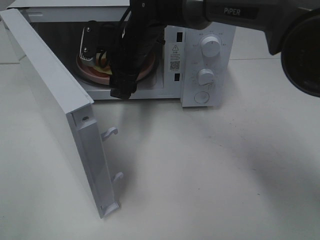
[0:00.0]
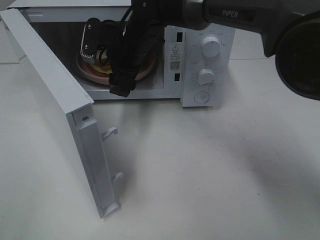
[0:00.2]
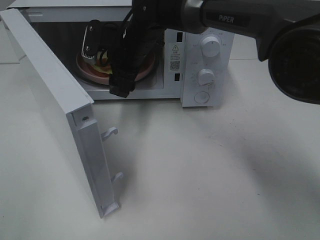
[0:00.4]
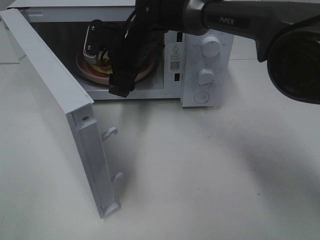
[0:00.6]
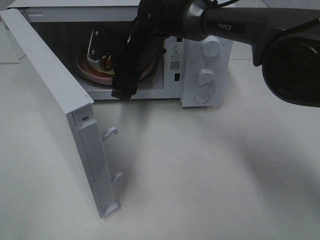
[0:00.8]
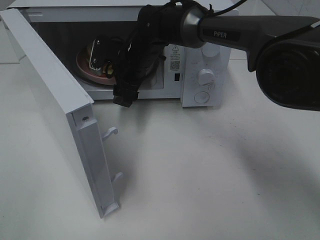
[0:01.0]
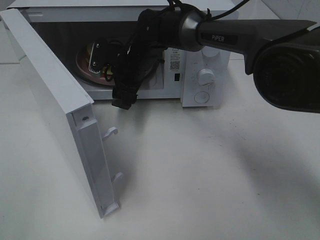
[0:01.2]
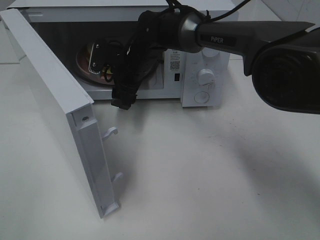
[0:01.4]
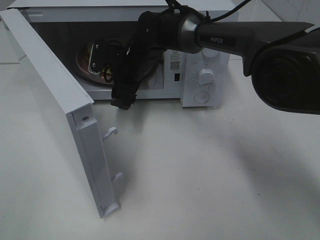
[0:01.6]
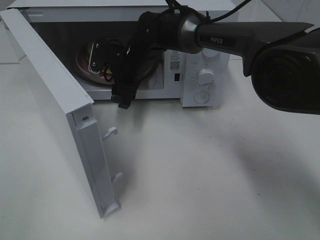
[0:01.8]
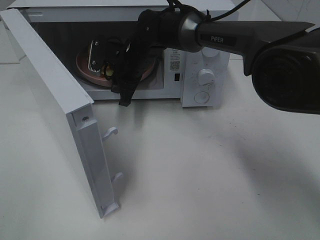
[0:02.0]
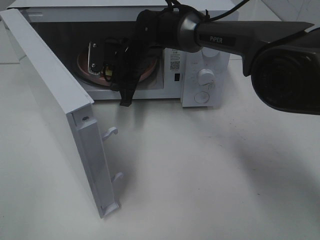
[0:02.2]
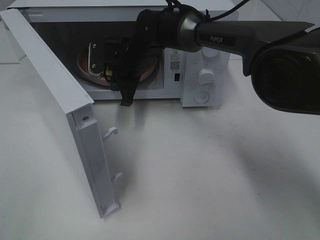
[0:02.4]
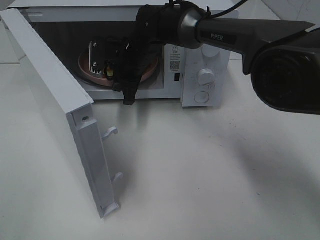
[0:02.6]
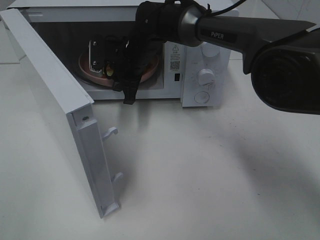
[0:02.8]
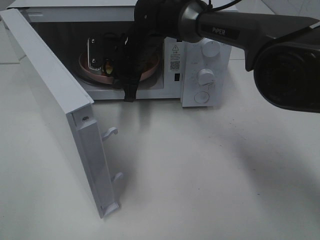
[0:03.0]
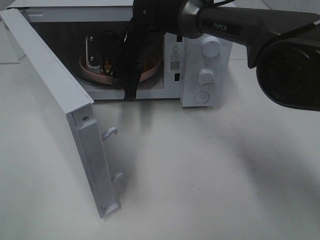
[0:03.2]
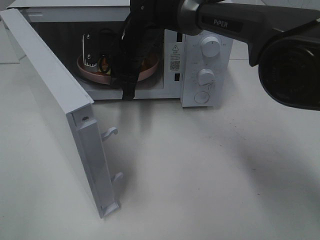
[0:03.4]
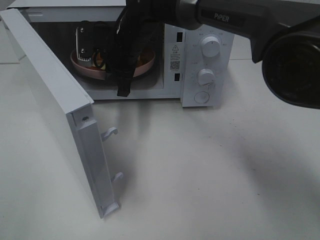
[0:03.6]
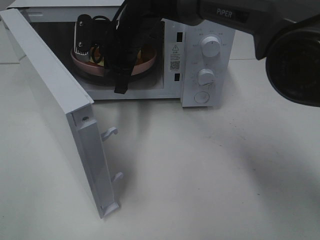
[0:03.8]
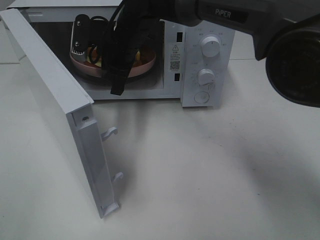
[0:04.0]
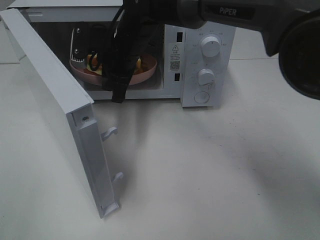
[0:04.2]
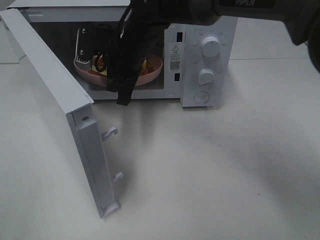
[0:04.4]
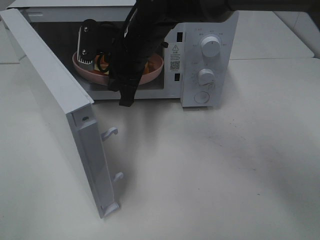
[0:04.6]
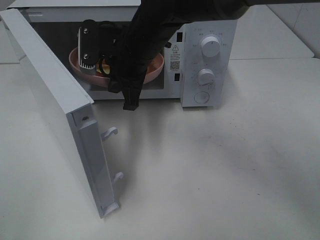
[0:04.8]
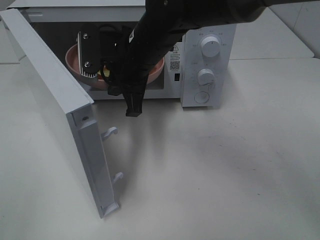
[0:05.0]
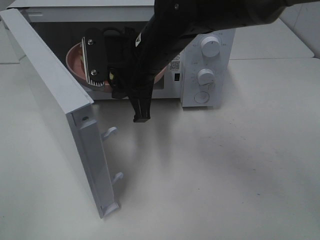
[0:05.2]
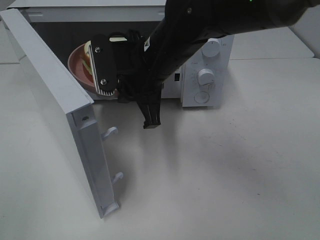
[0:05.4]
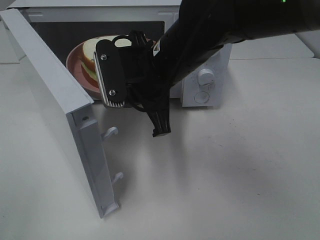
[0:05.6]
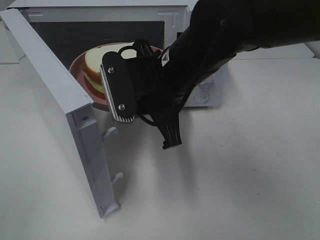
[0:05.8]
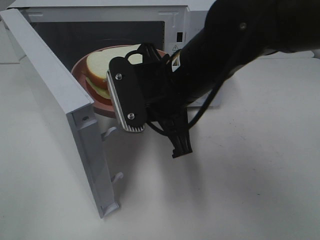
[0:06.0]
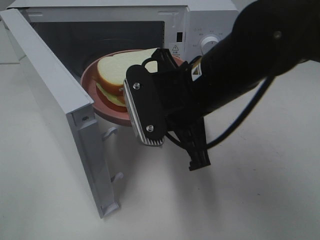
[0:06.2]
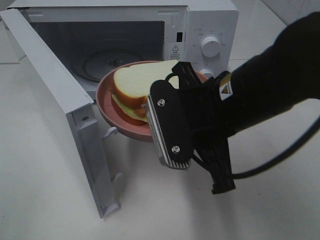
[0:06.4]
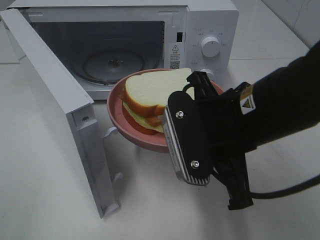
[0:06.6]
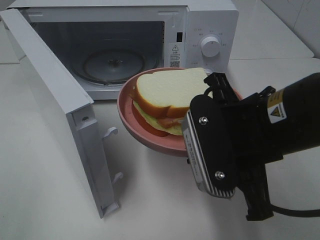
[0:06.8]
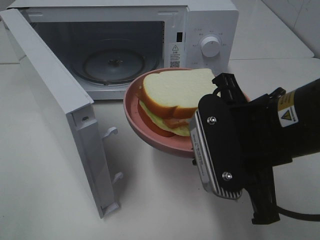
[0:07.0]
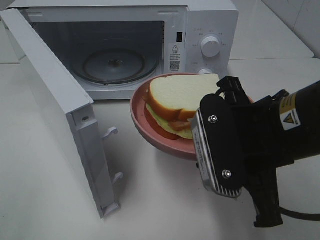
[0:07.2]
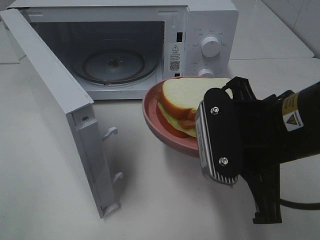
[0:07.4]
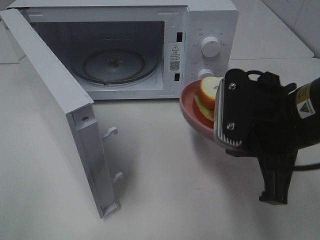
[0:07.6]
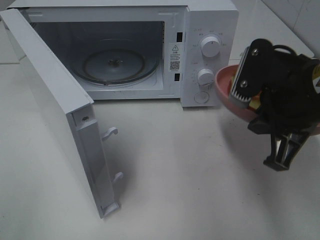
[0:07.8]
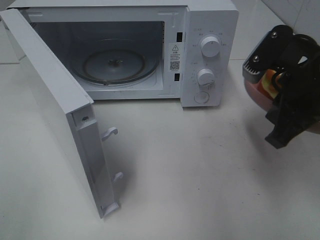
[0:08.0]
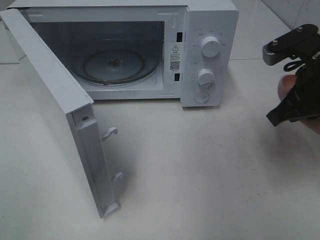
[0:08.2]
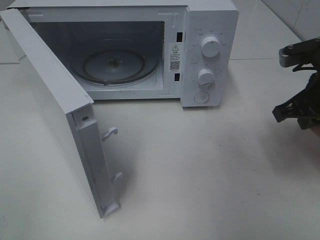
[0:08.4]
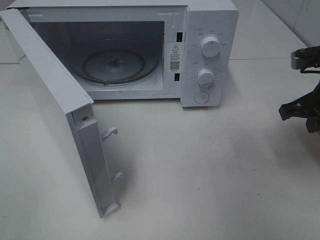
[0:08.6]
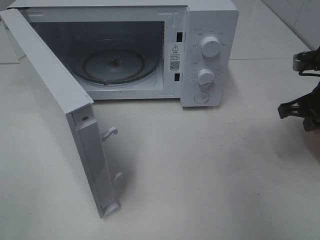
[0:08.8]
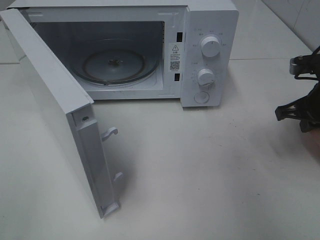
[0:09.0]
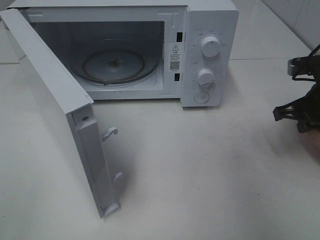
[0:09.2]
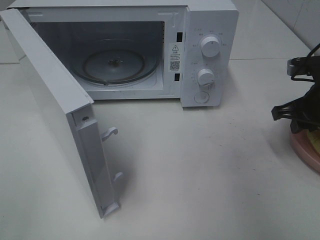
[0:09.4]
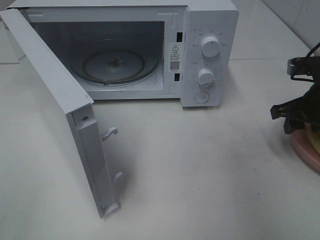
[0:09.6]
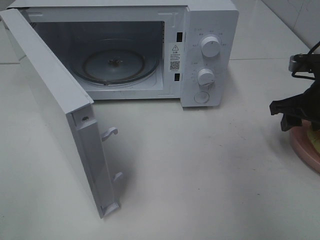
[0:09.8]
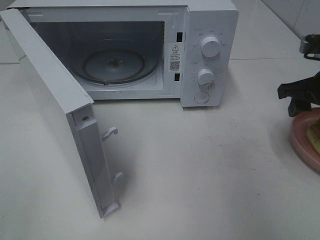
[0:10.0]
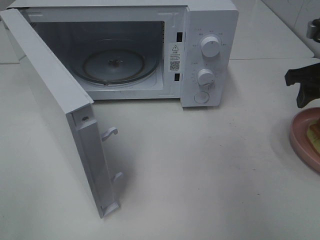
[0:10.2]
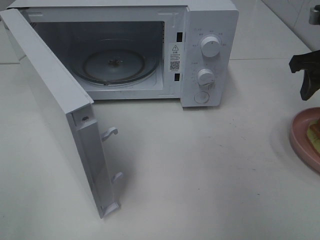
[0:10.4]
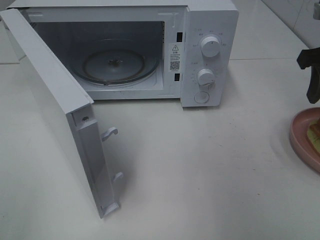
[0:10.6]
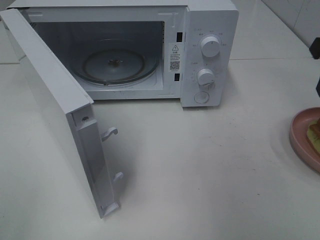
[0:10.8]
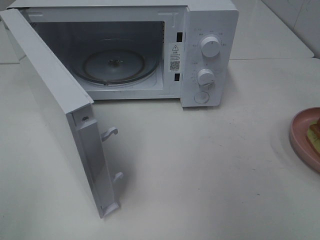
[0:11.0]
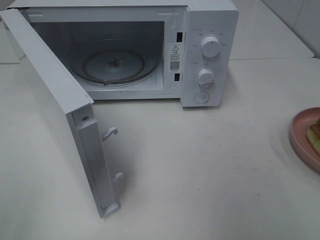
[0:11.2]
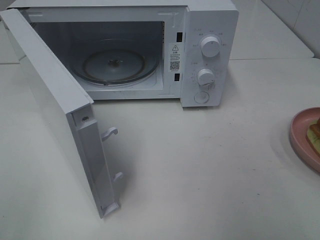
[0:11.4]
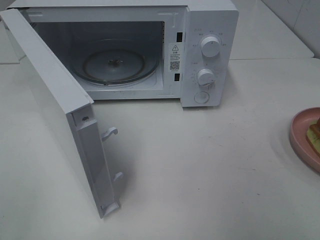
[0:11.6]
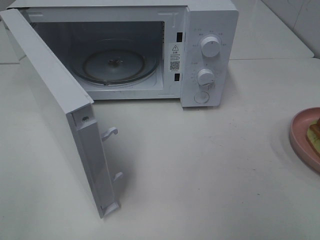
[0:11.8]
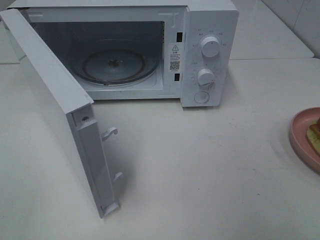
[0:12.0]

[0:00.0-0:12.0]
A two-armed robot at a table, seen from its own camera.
Task of the whole recording: Heat Sandwich.
Step, 0:00.0 to 0:02.0: Right hand: grab the plate with the sandwich.
Step, 0:02.2 to 0:10.2: Right hand: place the plate on the table.
0:00.0 to 0:01.6: The right gripper travels downward by roughly 5 cm.
0:01.6 to 0:03.0: The right gripper closes.
0:03.0 to 0:04.4: The right gripper moves backward, about 5 cm.
0:04.4 to 0:06.0: The right gripper moves backward and to the right, about 15 cm.
0:06.0 to 0:07.6: The right gripper is displaced to the right and backward by about 15 cm.
0:07.6 to 0:09.0: The right gripper shifts approximately 20 cm to the right, forward and downward.
0:09.0 to 0:10.4: The right gripper moves upward, approximately 10 cm, and opens up.
0:10.4 to 0:12.0: The right gripper heads backward, covering some 25 cm.

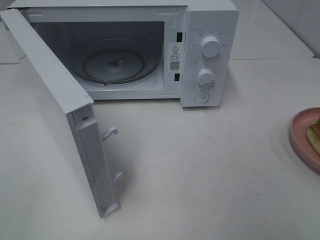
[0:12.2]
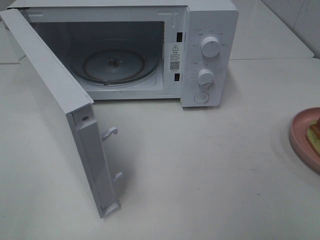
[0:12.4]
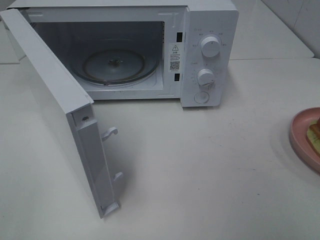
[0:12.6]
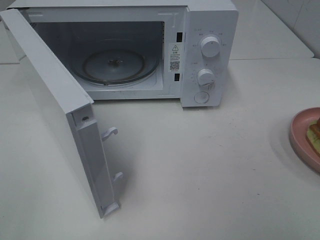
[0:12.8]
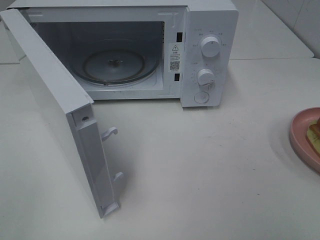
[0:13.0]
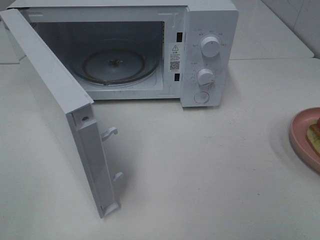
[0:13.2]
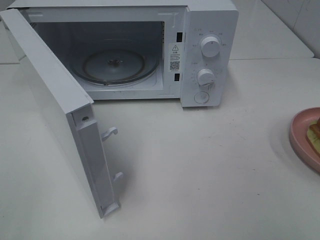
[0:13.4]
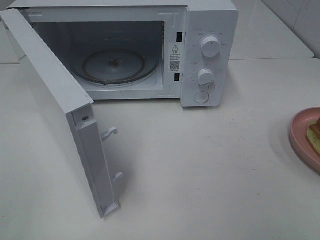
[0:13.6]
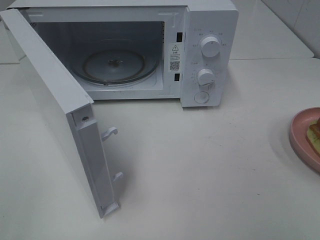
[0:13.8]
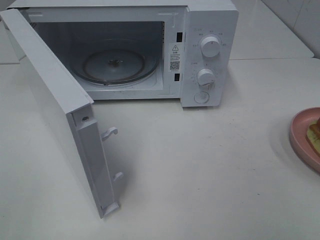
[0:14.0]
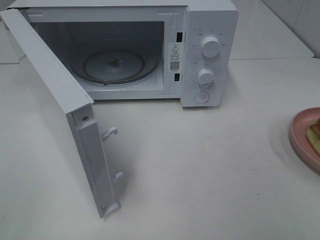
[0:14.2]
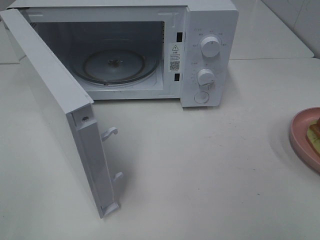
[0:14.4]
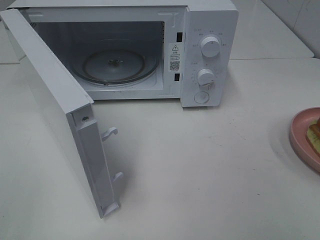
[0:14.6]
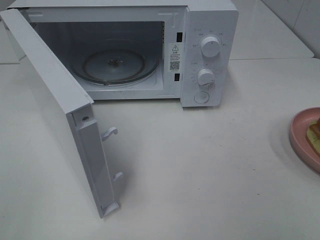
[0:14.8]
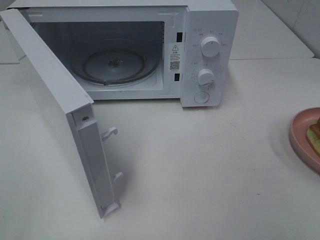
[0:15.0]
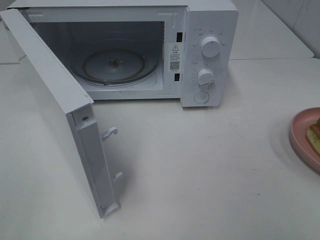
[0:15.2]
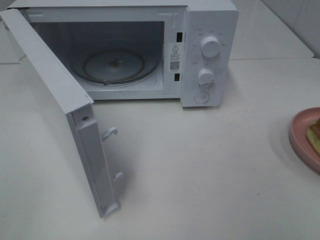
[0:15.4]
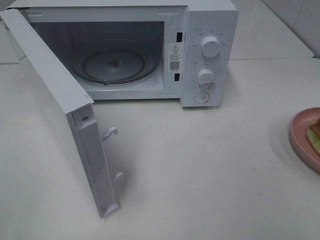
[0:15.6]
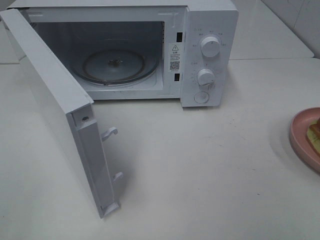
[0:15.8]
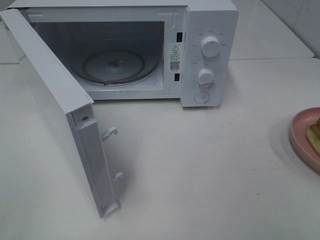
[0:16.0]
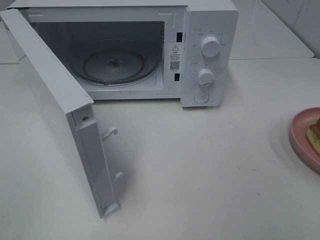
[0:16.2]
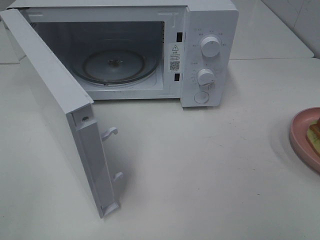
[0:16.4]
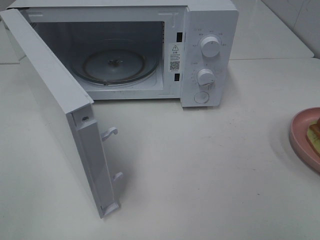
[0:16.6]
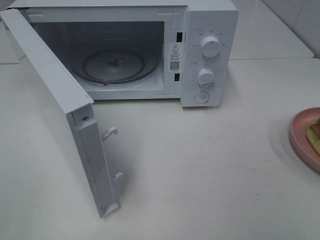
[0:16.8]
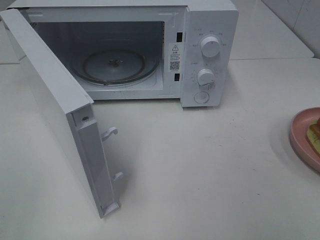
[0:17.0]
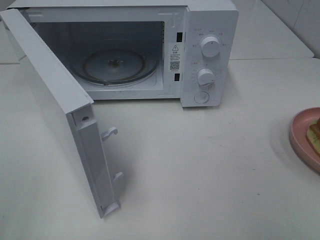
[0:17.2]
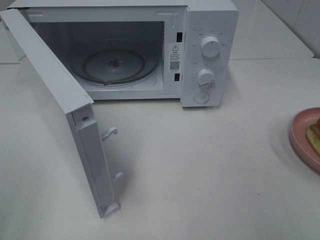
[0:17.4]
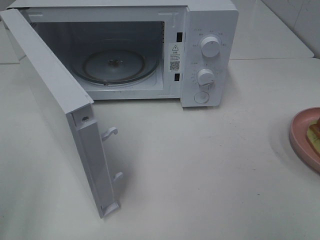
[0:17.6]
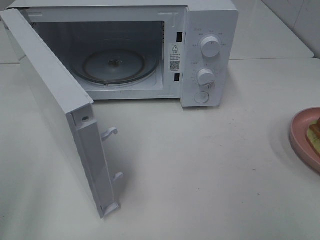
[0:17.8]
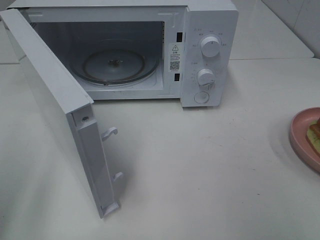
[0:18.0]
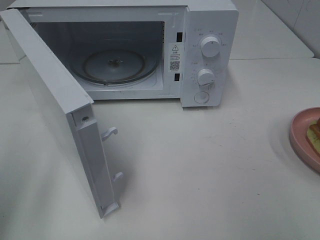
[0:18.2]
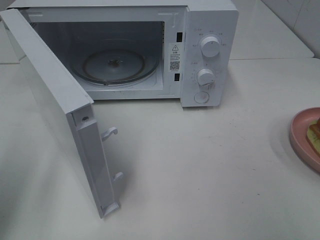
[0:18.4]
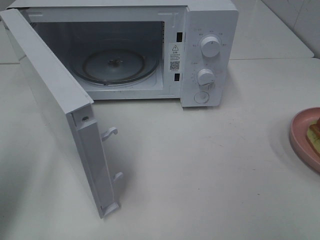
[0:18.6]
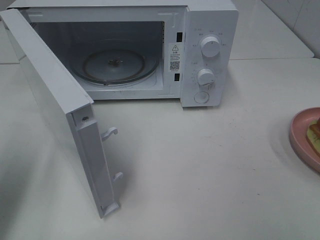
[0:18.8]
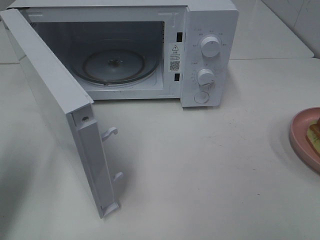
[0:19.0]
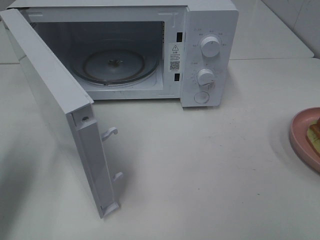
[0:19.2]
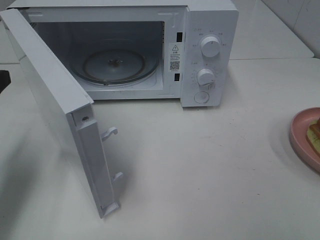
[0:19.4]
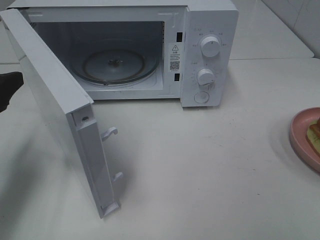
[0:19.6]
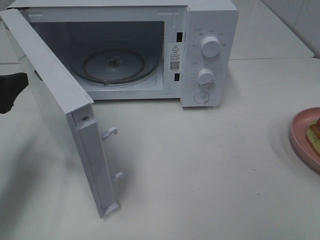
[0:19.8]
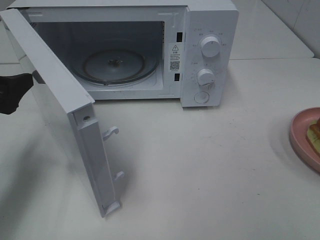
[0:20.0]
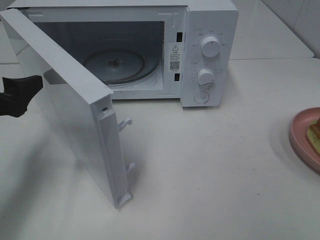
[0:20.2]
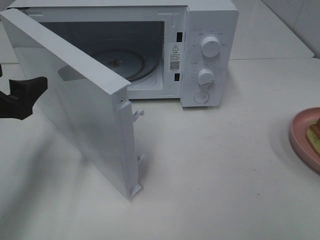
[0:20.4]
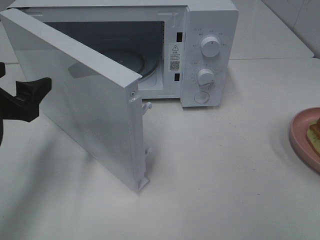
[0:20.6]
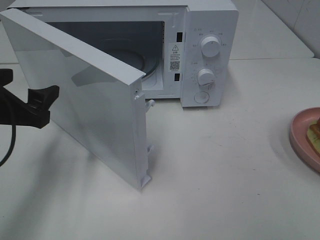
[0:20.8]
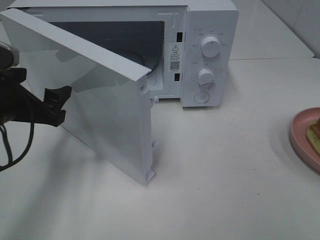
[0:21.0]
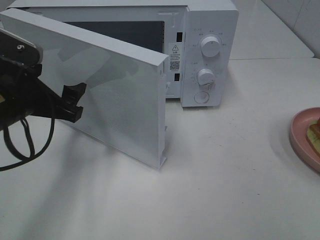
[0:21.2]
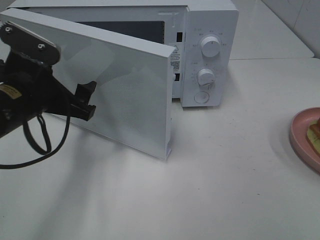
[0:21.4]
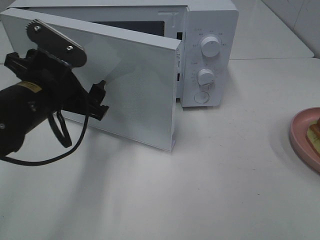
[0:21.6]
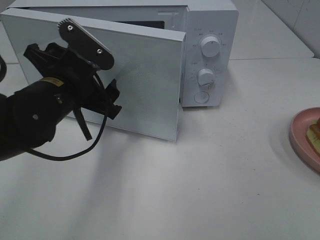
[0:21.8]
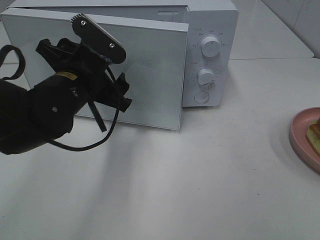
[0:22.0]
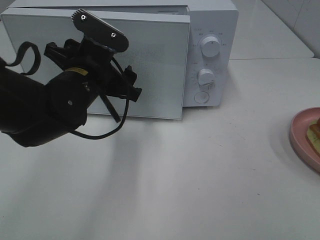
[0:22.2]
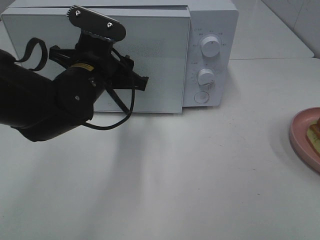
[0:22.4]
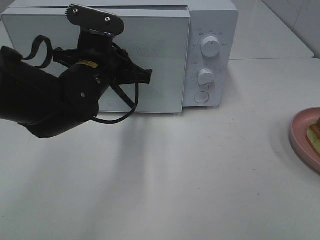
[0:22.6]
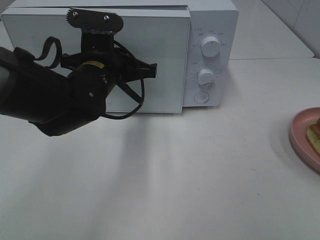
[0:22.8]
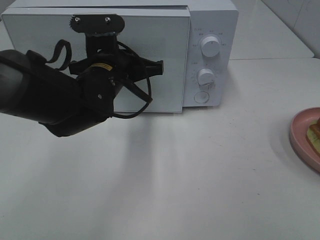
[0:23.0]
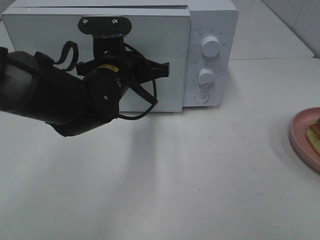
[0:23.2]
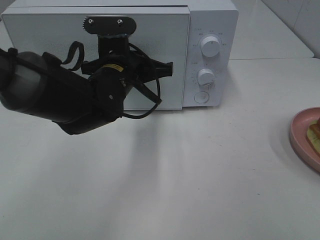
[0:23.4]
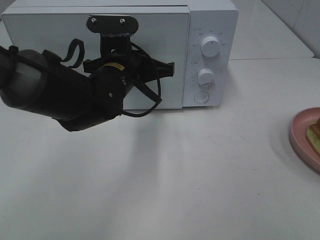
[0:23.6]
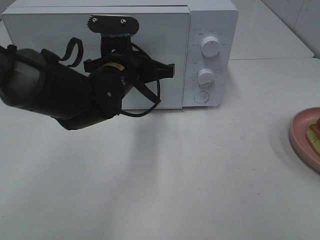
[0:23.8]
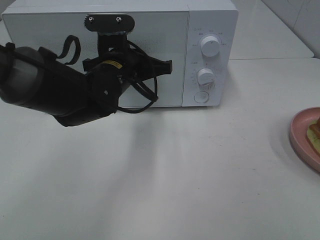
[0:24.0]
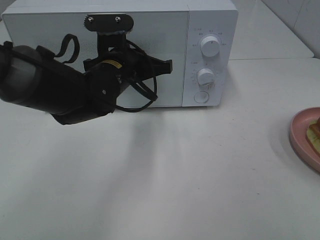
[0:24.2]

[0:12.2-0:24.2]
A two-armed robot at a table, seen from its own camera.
Task of the whole recording: Heat Sandwich.
0:13.8 to 0:16.6: Neither gripper changes place.
0:16.6 to 0:18.2: The left gripper shifts about 15 cm forward.
0:18.2 to 0:19.8: The left gripper is displaced forward and downward by approximately 15 cm.
0:19.8 to 0:21.2: The left gripper shifts approximately 10 cm to the right.
0:21.2 to 0:22.6: The left gripper is displaced to the right and forward by approximately 10 cm, and closes its fingers.
0:22.6 to 0:24.2: The grippers stay close to where they were, moving slightly.
